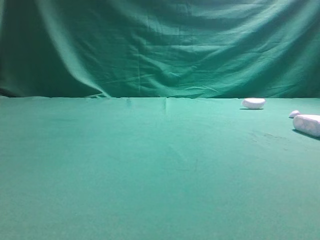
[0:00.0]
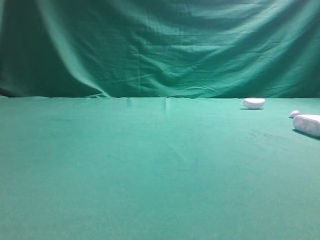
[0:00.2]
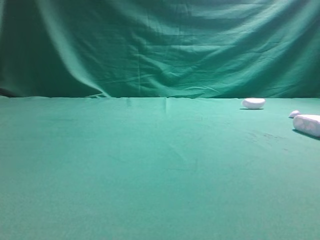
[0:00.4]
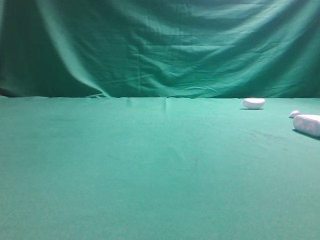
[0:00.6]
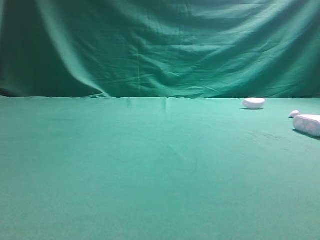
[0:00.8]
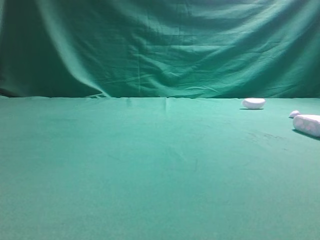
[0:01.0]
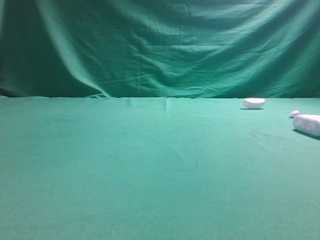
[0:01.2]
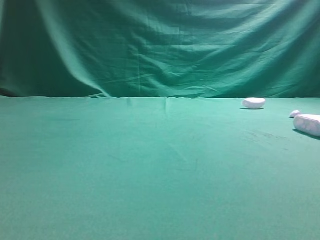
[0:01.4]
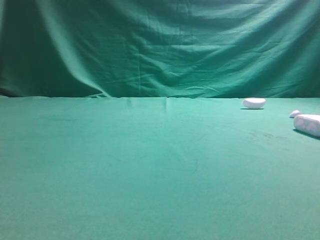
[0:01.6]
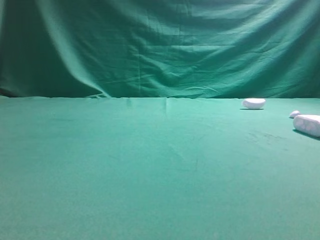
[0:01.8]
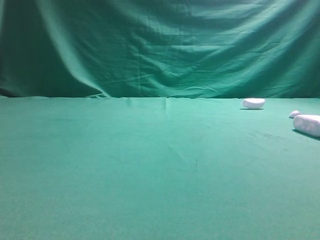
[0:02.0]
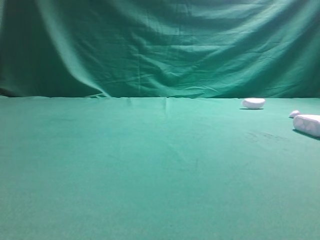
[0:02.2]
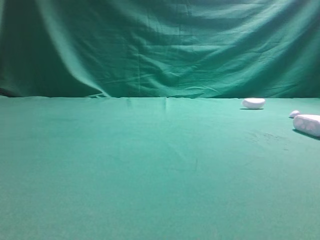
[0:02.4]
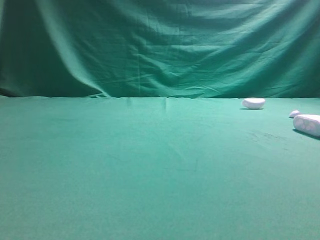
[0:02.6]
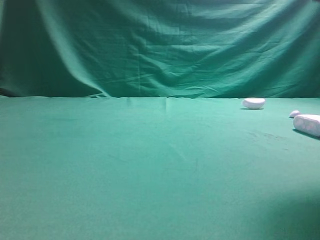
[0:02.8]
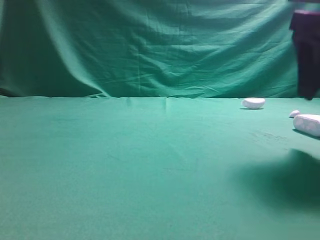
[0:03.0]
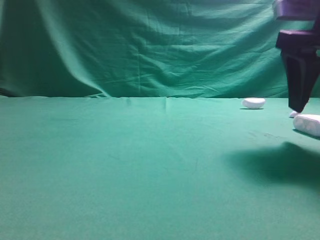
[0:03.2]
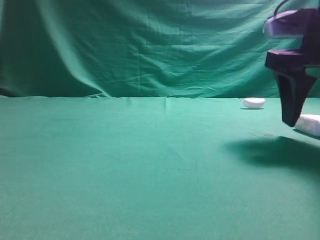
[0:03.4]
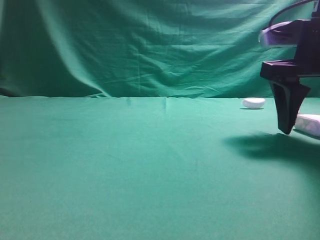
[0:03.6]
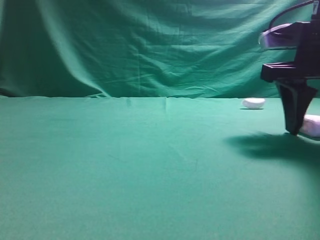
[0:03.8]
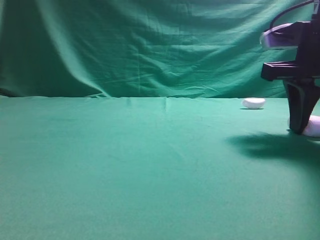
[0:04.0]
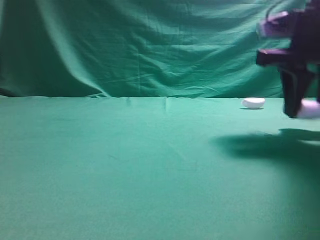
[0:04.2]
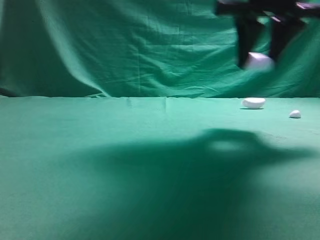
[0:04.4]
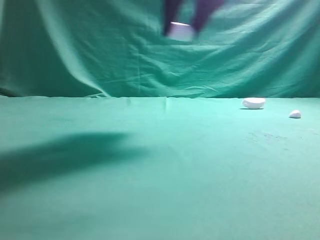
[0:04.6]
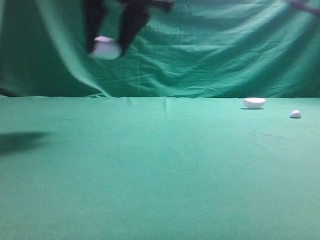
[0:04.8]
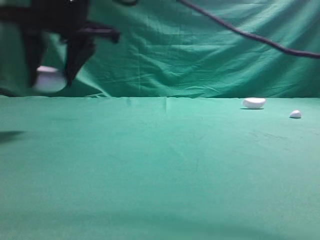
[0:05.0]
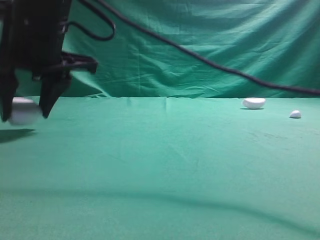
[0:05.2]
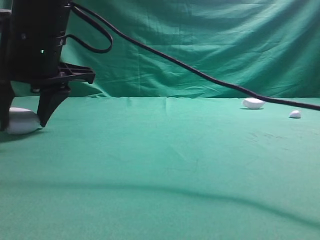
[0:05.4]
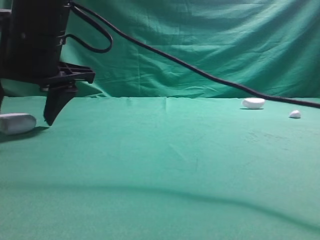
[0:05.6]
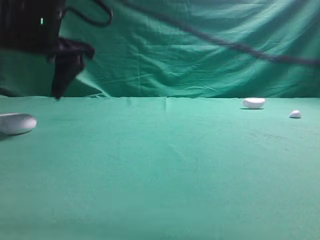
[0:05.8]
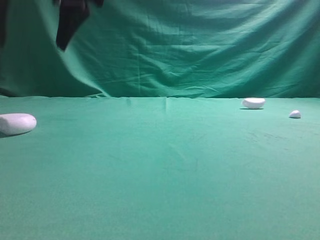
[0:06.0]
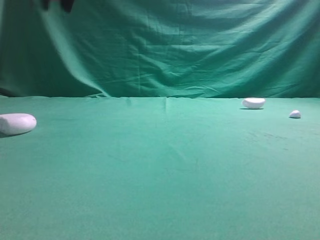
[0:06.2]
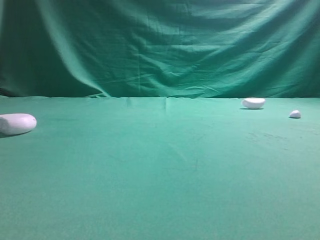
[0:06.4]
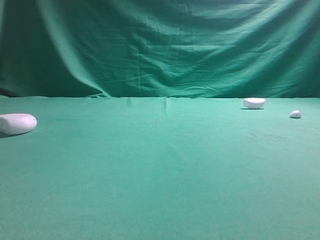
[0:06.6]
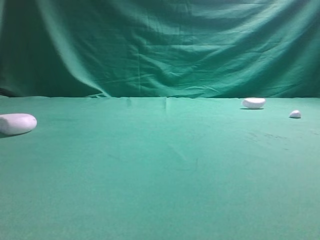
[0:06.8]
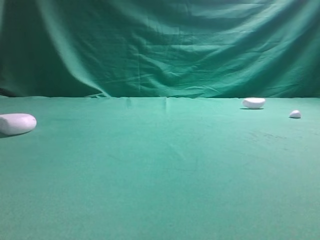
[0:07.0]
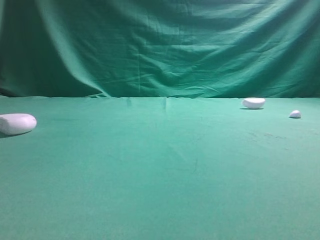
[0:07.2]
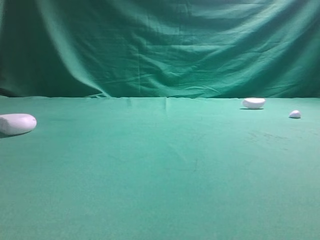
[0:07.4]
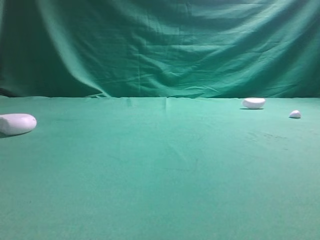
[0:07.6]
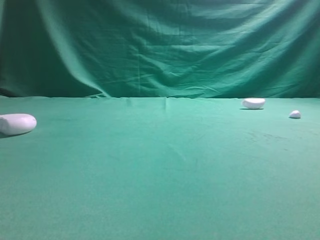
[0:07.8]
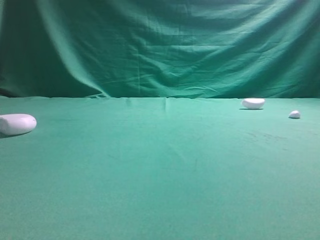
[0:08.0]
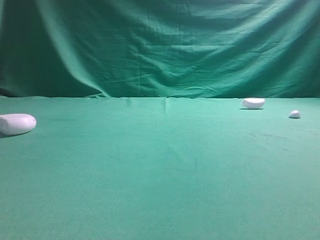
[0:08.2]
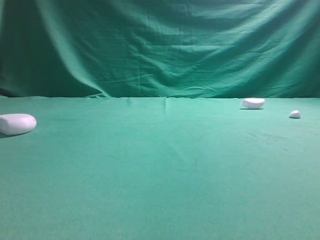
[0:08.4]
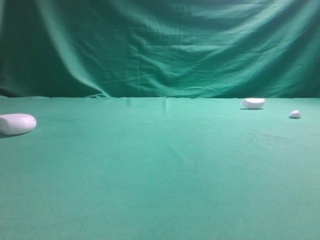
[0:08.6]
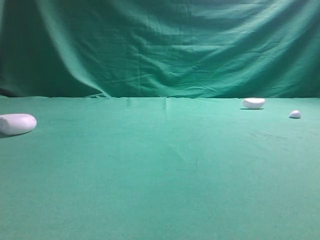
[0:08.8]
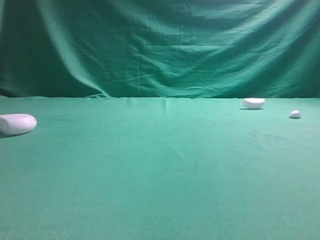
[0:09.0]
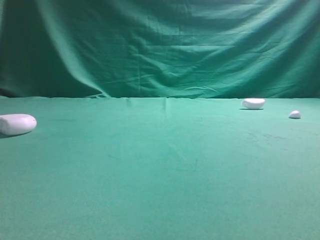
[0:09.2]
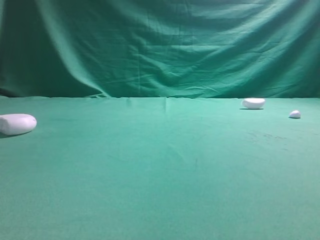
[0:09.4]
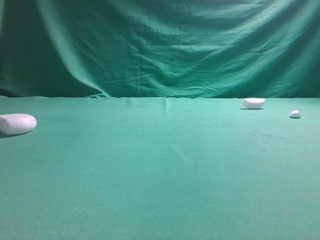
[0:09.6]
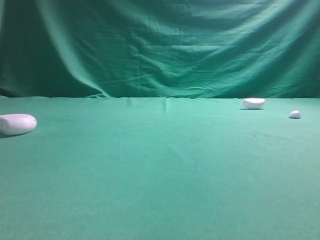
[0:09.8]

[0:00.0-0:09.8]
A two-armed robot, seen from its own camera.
Step, 0:00.0 to 0:04.2: Grasp the Bluetooth earphone case.
Step, 0:04.4 to 0:05.8: Place bluetooth earphone case on the left side of the table.
